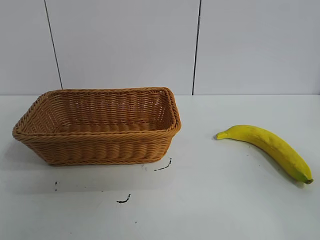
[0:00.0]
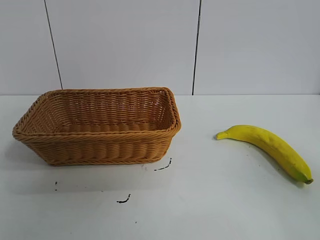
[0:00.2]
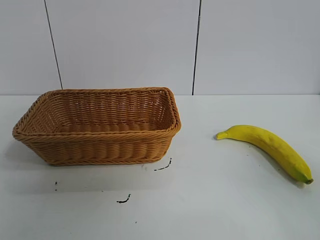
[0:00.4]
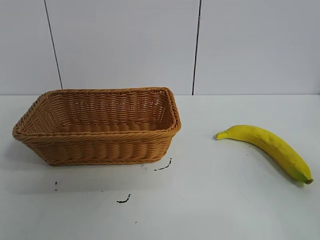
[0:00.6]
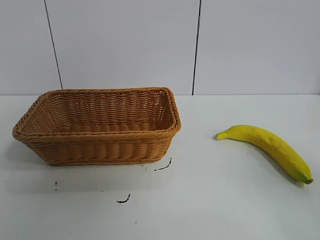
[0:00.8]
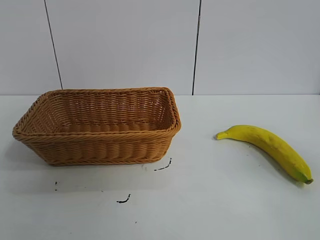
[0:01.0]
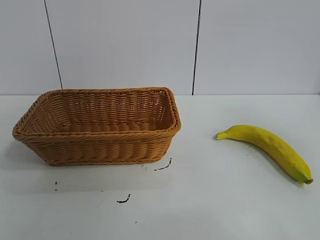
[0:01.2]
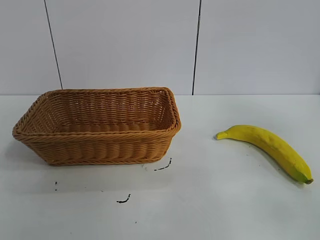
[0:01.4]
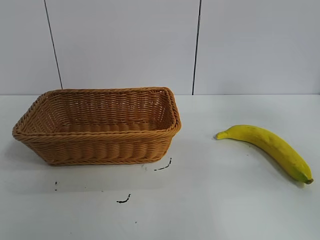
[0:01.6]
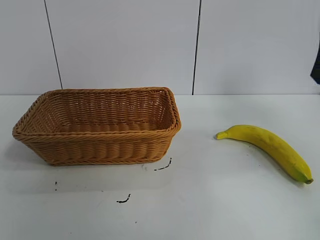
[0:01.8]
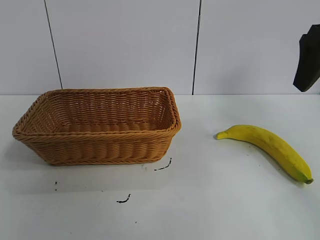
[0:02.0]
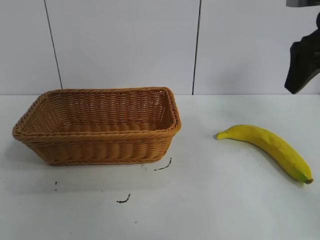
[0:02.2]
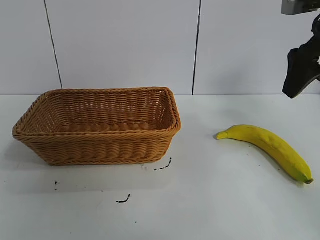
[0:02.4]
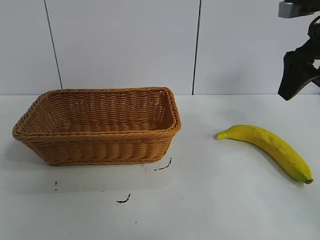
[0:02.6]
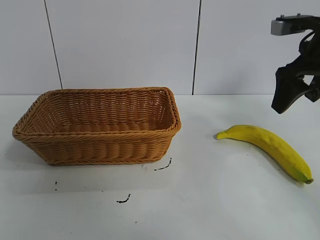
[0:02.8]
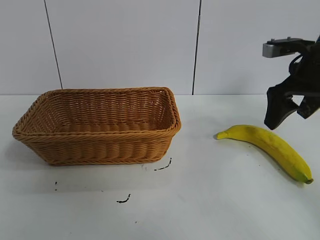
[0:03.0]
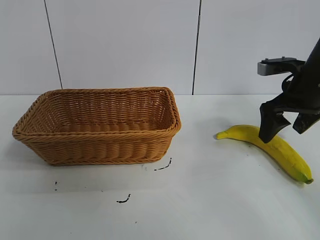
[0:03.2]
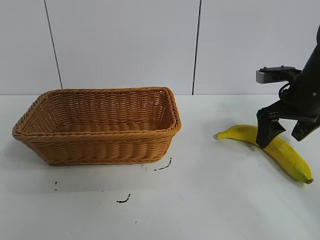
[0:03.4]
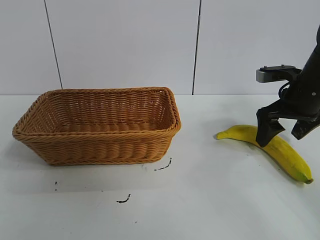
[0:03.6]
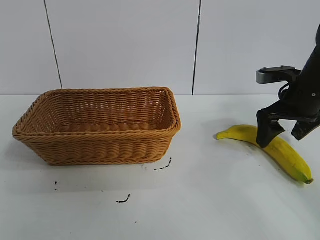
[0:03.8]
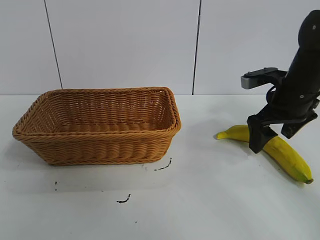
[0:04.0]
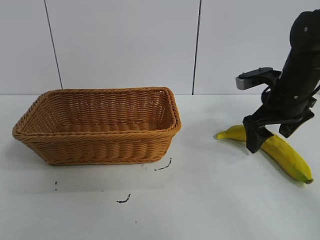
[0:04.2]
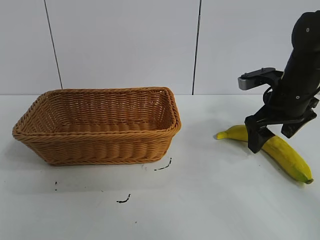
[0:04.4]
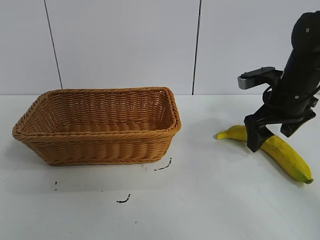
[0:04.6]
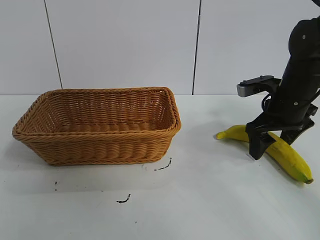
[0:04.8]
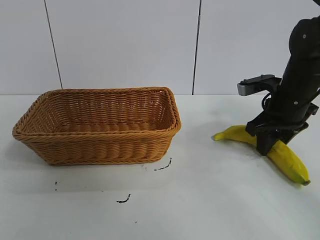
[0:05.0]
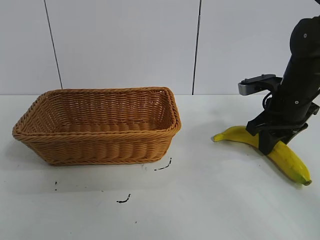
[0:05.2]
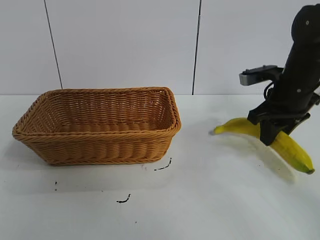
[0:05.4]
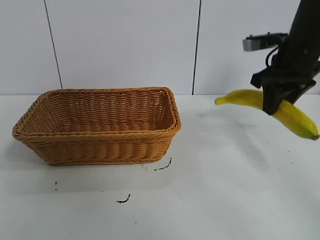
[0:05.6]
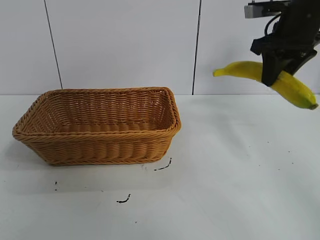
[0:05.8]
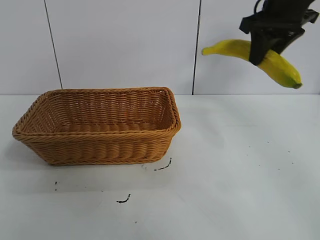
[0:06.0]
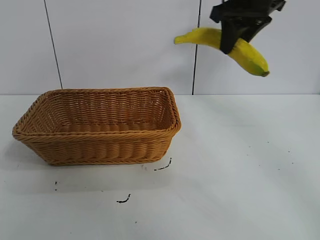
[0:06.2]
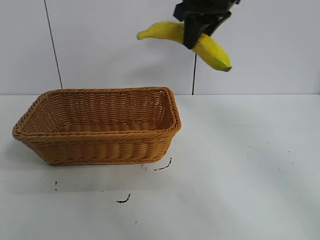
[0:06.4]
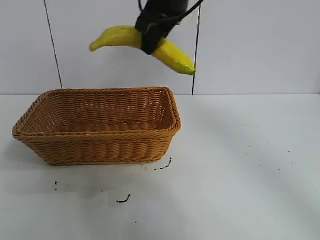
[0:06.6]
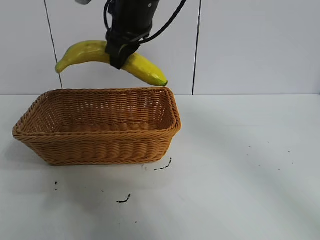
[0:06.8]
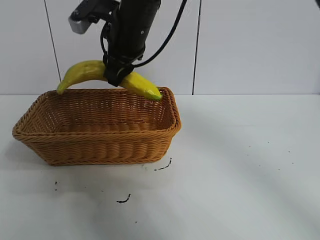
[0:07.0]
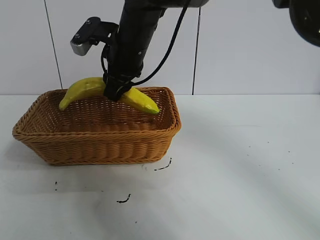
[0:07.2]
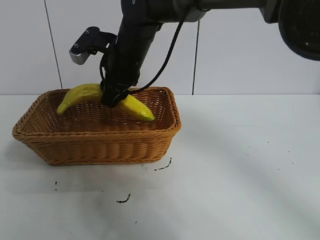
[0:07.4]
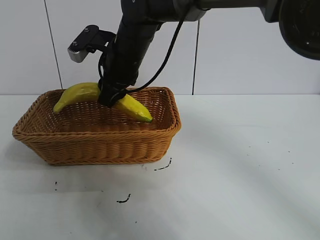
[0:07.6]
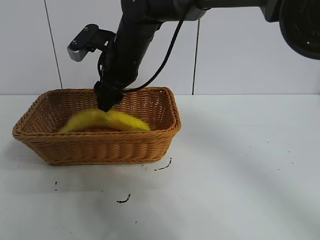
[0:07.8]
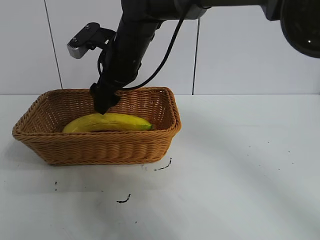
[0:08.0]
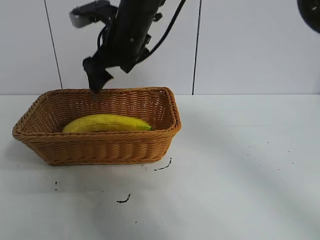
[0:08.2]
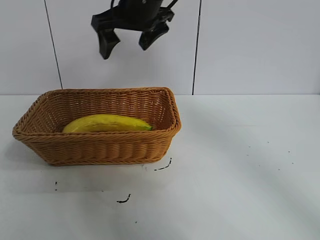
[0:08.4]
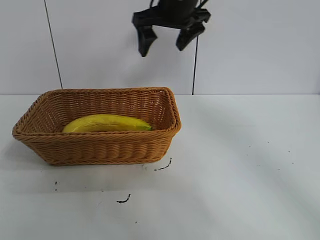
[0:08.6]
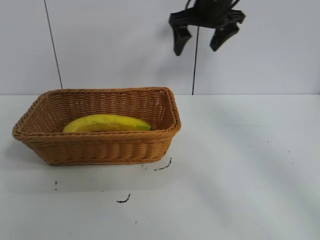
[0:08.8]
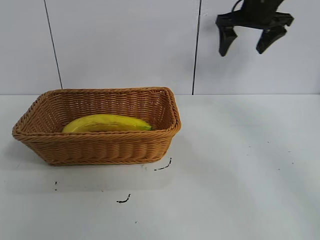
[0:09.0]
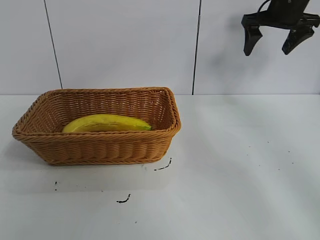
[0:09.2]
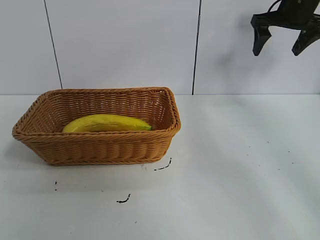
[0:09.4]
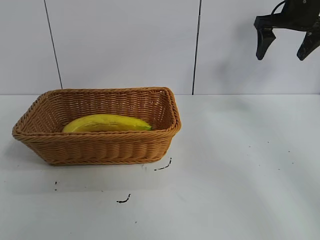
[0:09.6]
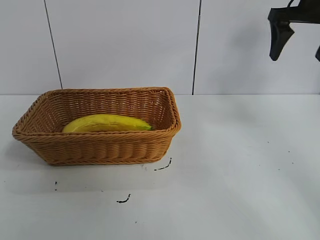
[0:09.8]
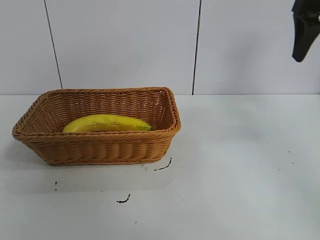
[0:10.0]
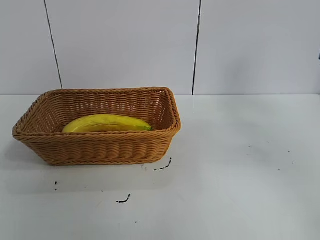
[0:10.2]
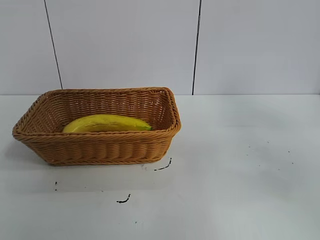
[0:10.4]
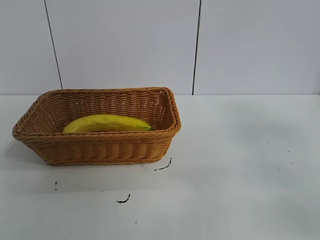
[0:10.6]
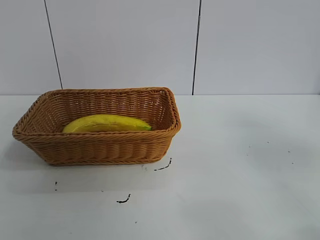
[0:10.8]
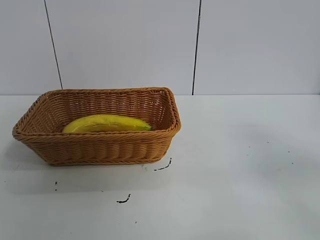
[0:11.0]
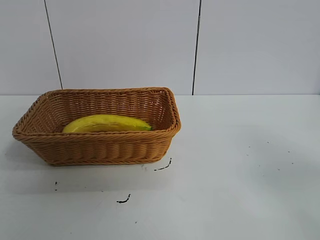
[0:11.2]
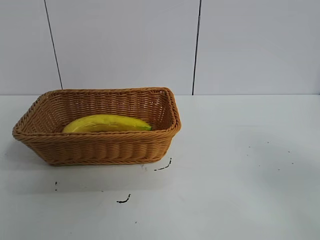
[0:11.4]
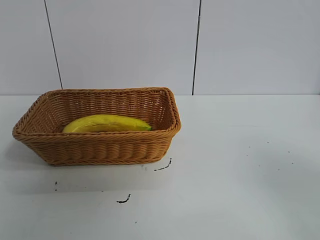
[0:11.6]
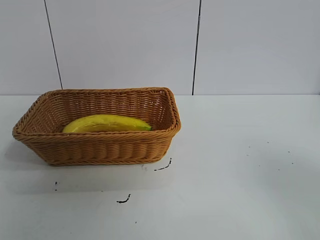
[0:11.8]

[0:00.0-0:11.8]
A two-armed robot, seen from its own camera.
Task of the whole recording: pick up the banana and put it into the basket.
Step, 0:00.8 to 0:05.2: Grasp the banana with right gripper.
Step, 0:05.4 to 0:08.0: Place the banana in the basket with right gripper.
